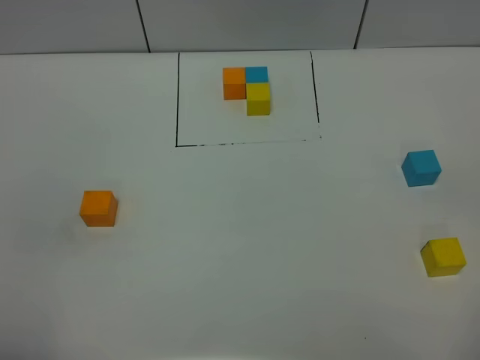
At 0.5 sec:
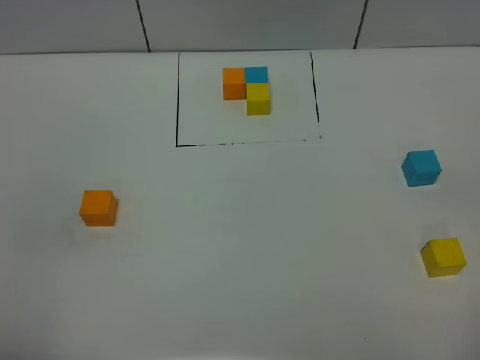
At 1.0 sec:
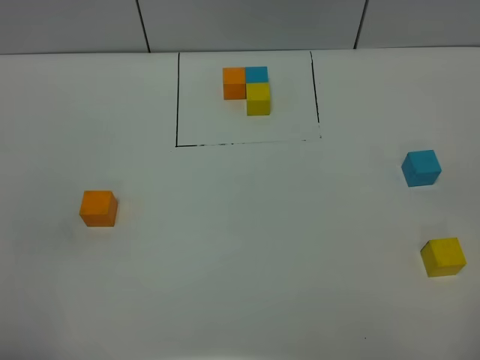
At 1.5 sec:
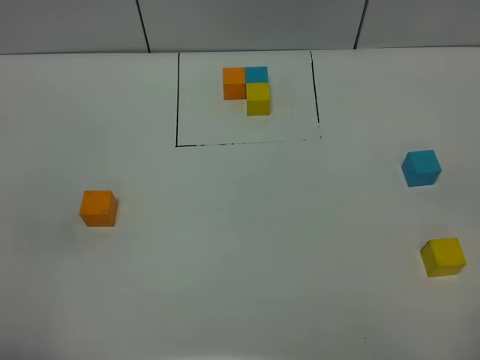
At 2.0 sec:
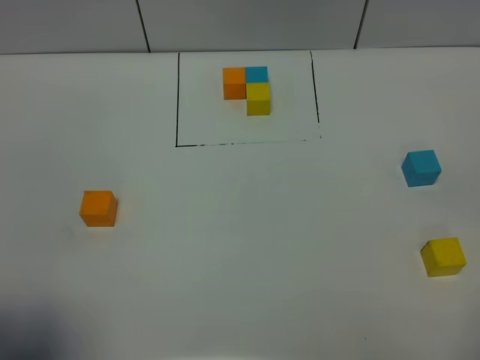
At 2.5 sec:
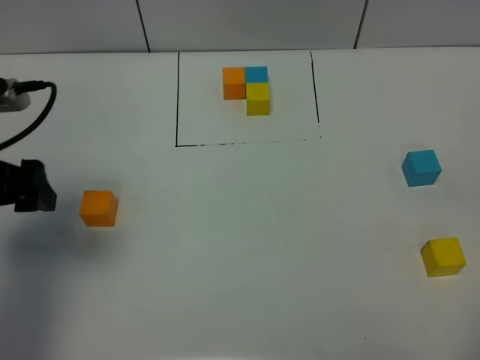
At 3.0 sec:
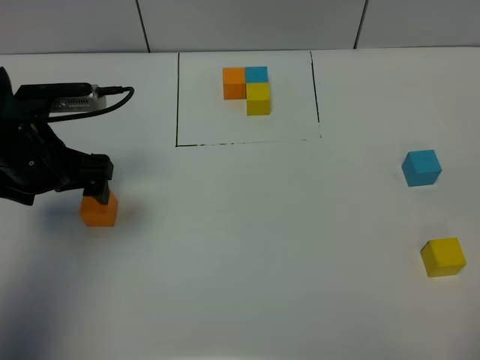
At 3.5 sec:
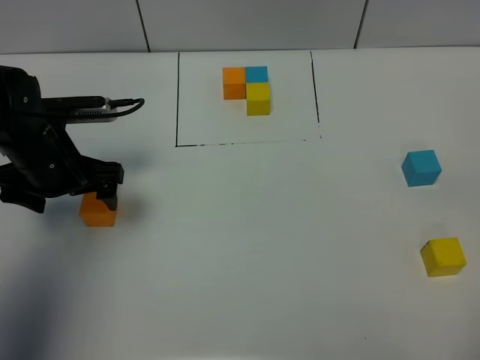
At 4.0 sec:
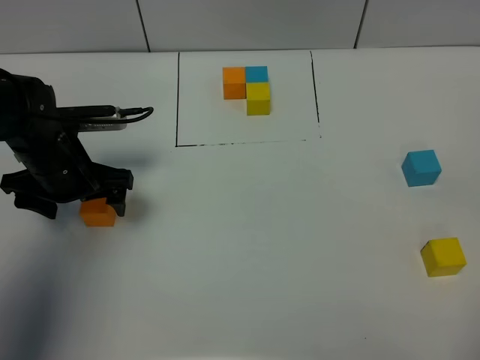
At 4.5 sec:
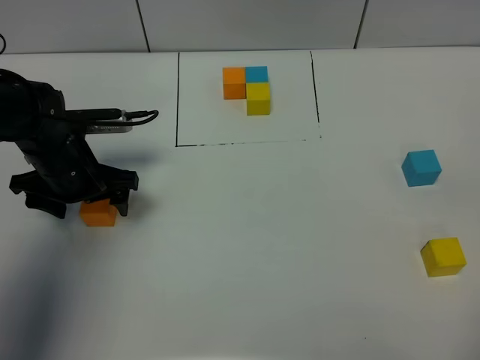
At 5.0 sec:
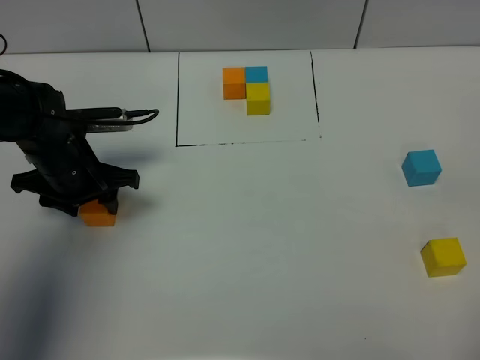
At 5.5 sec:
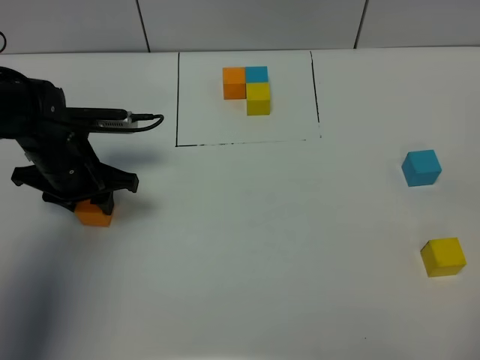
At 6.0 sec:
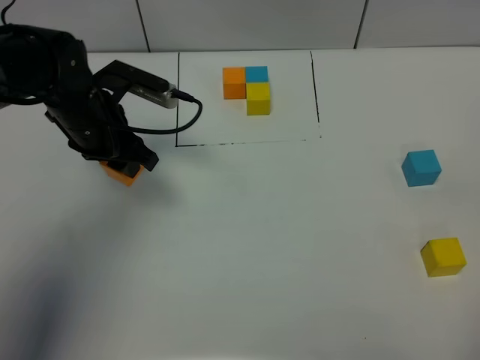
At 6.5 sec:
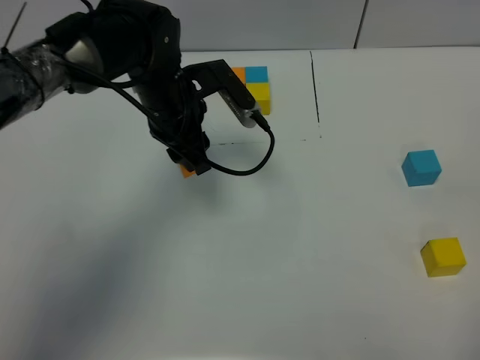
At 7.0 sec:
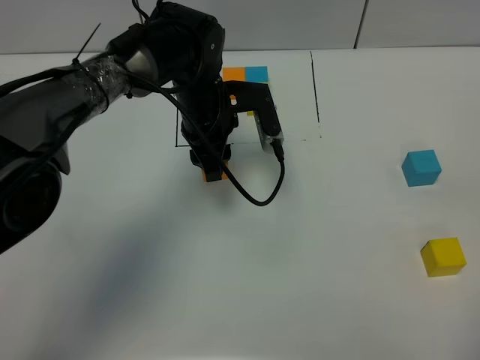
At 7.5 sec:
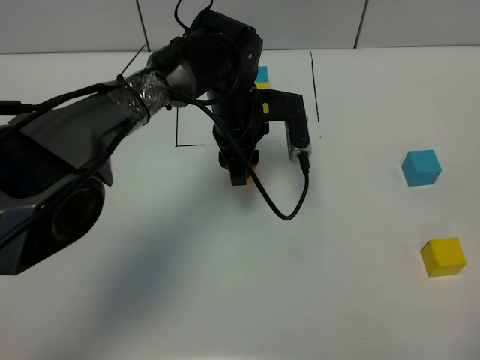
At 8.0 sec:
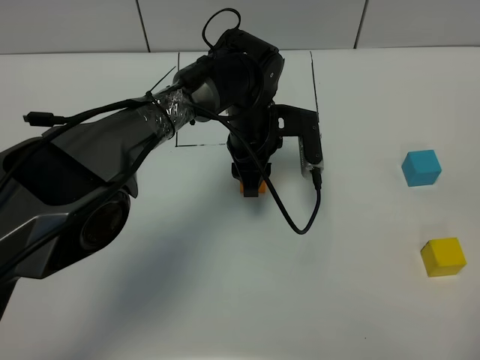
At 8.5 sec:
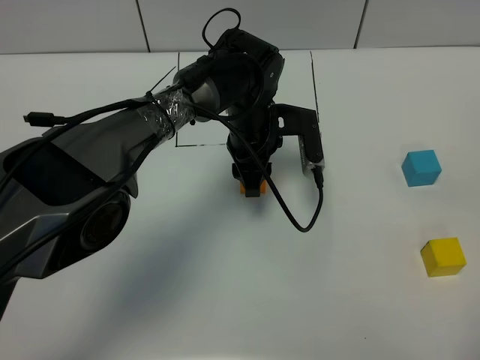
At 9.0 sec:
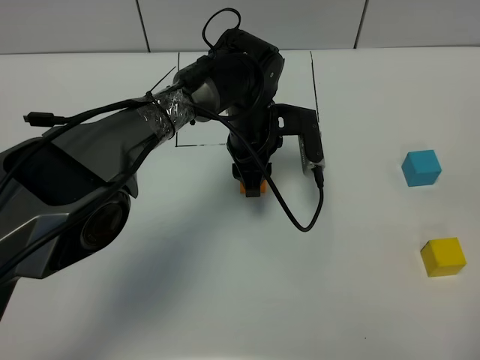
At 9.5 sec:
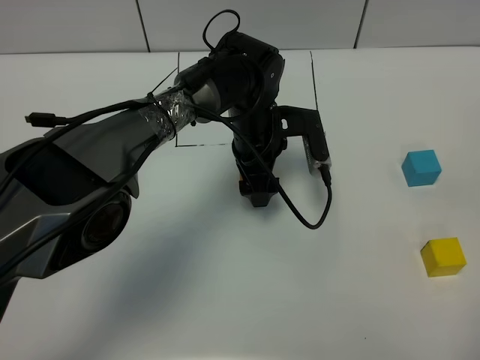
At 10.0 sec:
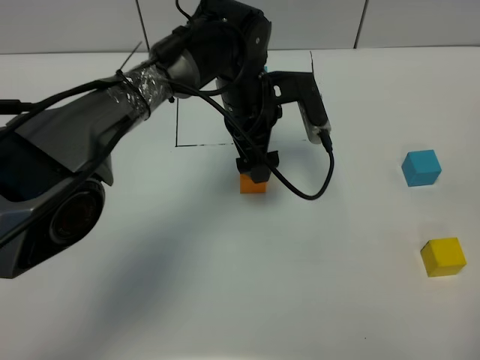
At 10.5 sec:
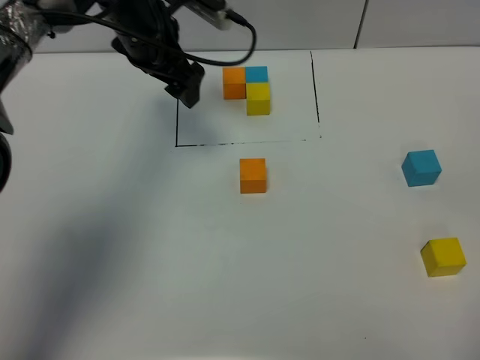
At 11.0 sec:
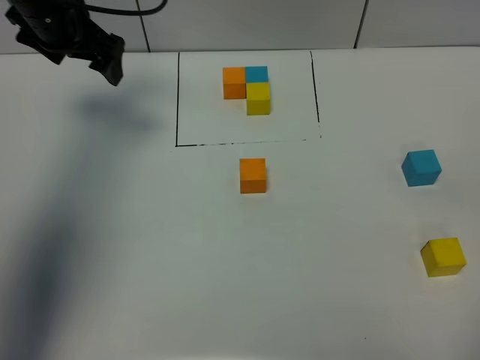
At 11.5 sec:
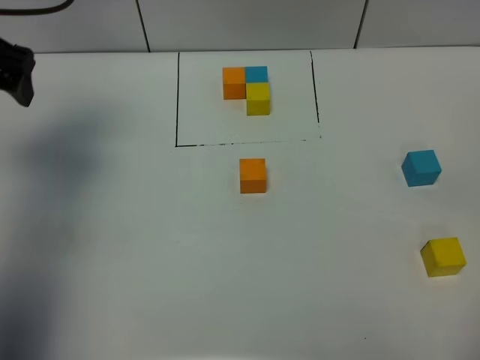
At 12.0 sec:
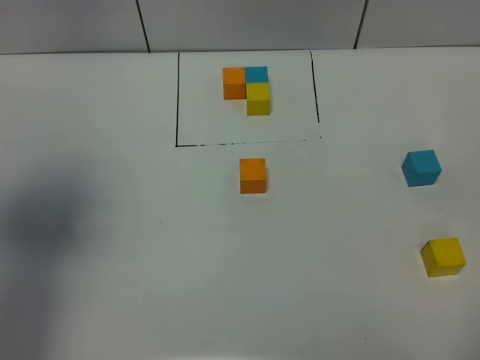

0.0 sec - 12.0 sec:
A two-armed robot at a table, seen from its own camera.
Task of the whole recording: According to the building block template in front, assemble the scattered blocks together.
Step, 0.0 sec - 9.0 sec: Put the orange build block in the center of the table.
0.0 sec - 2.0 sec: The left gripper is displaced forward by approximately 5 cm.
2.0 sec - 4.0 sec: The left gripper travels forward and downward by about 30 cm.
4.0 sec - 6.0 sec: The left gripper changes place by about 5 cm, and closes.
6.0 sec - 8.0 sec: The left gripper shifts some 20 cm to the right.
8.0 sec - 10.0 sec: The left gripper shifts some 5 cm upward, and opens up.
10.0 sec - 12.0 sec: The left gripper is displaced to the left, upward and backward by some 40 cm.

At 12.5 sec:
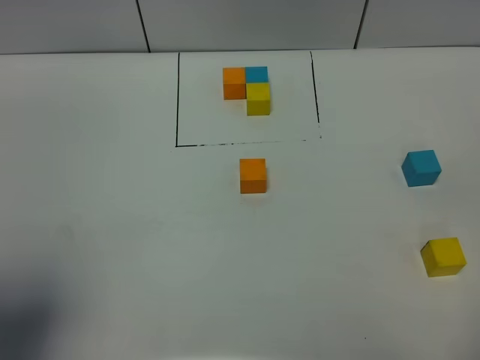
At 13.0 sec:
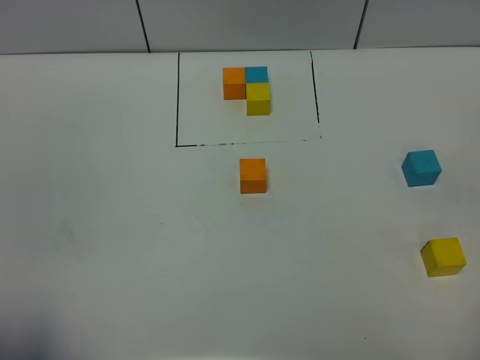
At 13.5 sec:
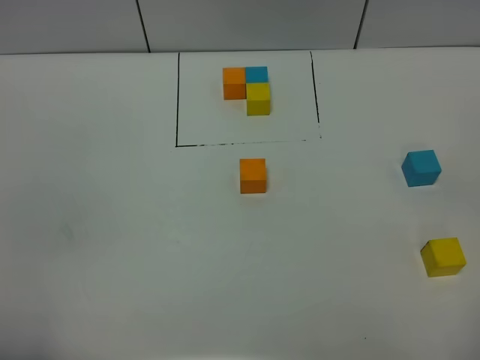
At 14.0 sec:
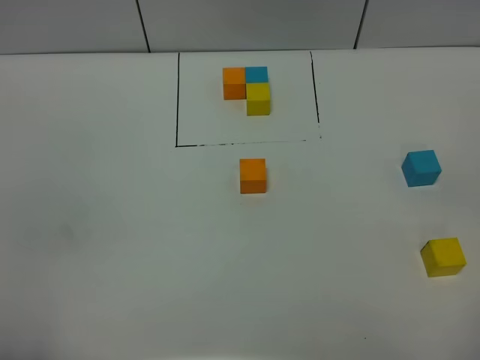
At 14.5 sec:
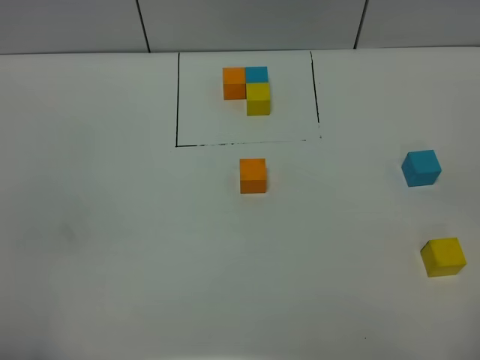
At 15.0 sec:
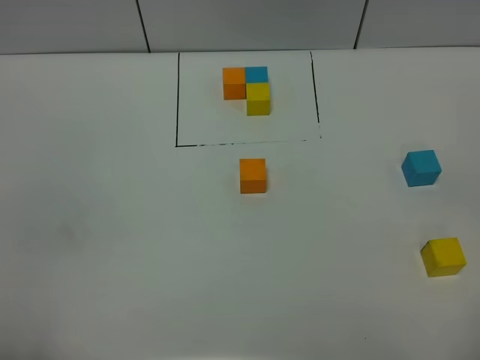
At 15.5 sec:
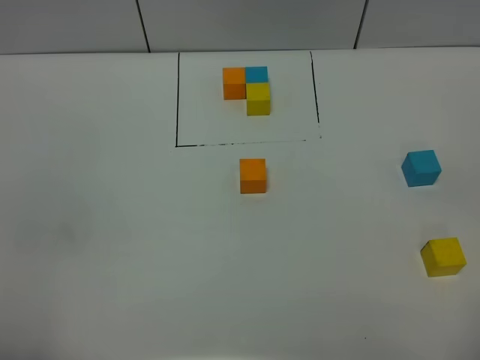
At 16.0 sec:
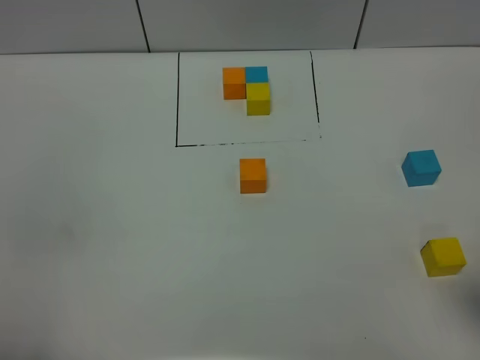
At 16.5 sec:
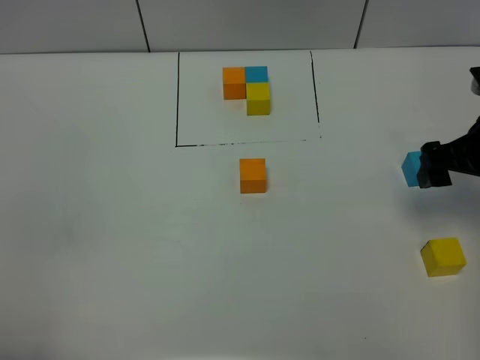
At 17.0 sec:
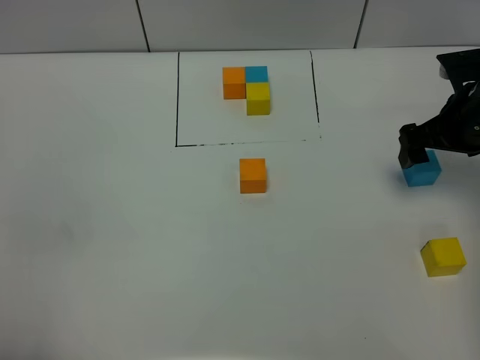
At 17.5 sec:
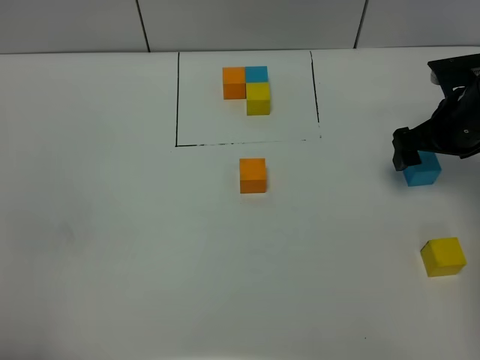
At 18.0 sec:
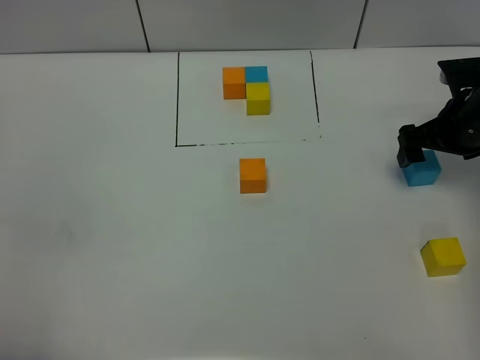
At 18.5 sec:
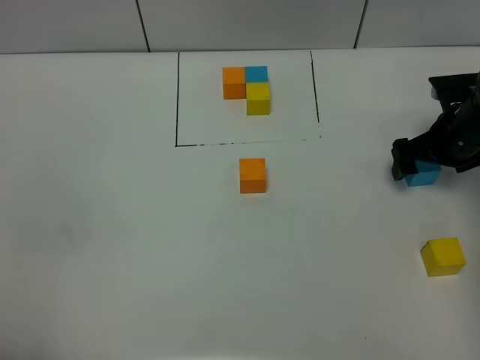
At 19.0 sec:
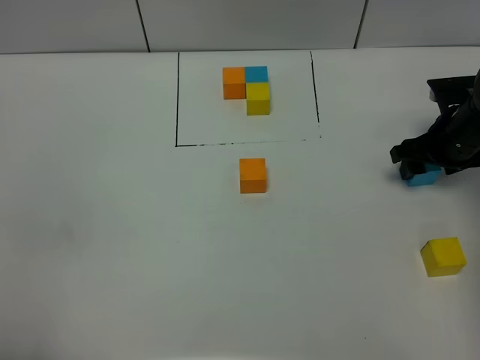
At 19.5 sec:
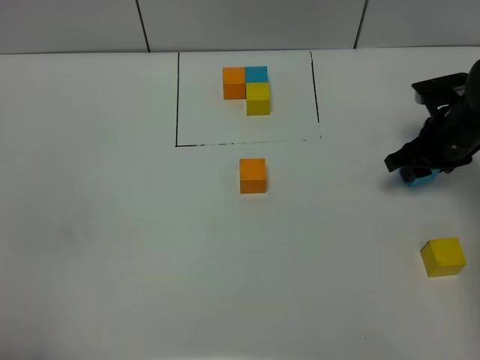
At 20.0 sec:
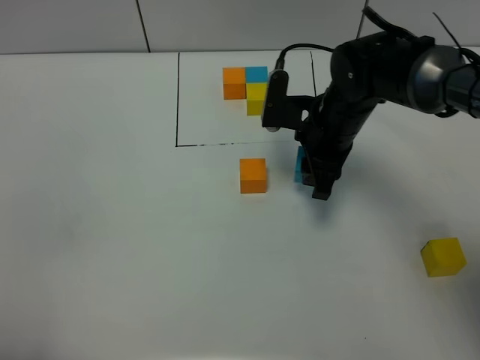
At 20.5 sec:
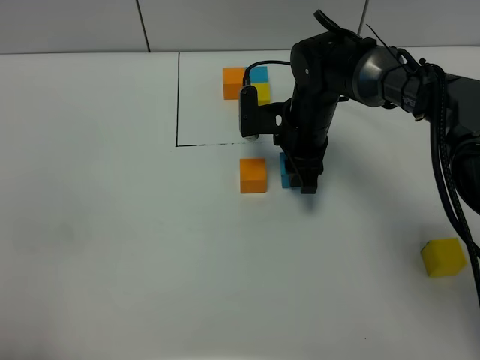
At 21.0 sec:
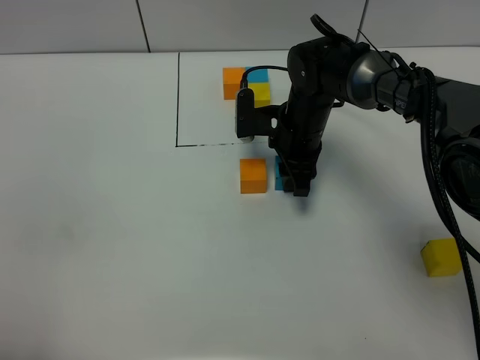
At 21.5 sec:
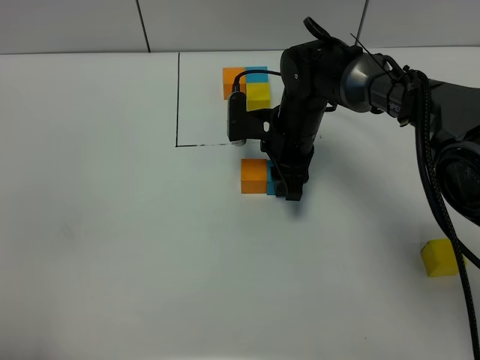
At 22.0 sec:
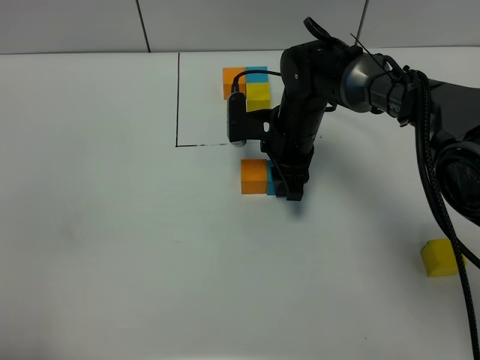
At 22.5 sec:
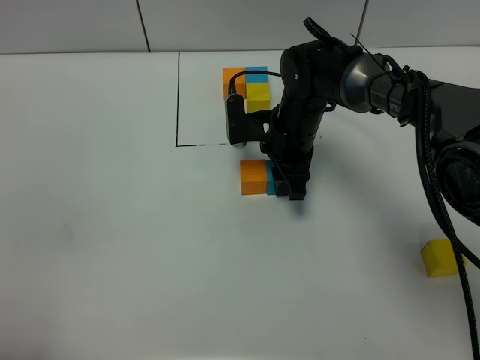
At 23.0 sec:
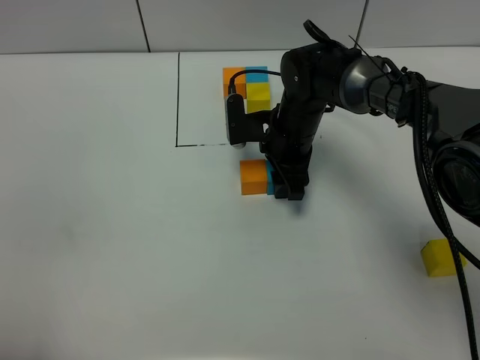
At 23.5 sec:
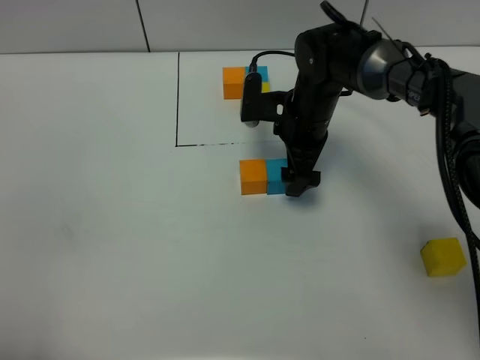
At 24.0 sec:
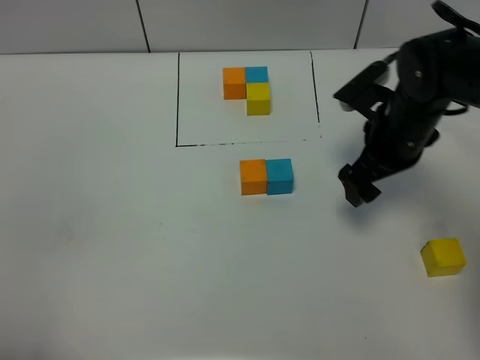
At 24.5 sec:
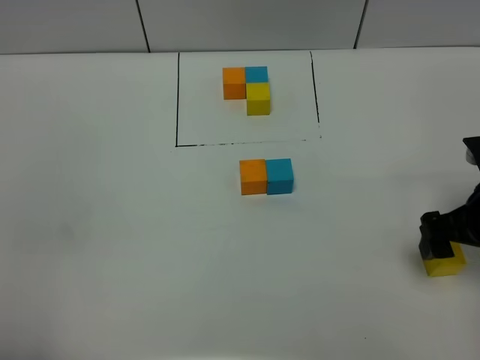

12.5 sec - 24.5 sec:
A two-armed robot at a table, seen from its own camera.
Task of the whole recording: According to the building block template in front, assemble the scattered blocks together.
Step, 12.5 sec - 23.0 sec: Put the blue build block on the right of the orange build block.
12.5 sec - 14.5 sec: The left gripper travels backward and downward by about 10 cm.
14.5 sec - 16.5 sec: The right gripper heads forward, covering about 30 cm.
16.5 sec - 18.5 sec: The right gripper goes approximately 10 cm downward and forward.
18.5 sec - 20.5 sec: The right gripper moves to the left, about 20 cm, and closes up.
20.5 sec - 22.5 sec: The grippers move only a little.
22.5 sec - 24.5 sec: The right gripper goes about 25 cm to the right and backward, and opens.

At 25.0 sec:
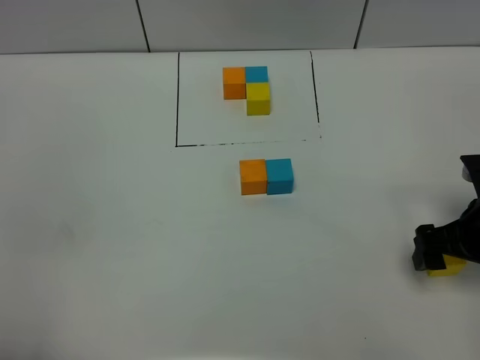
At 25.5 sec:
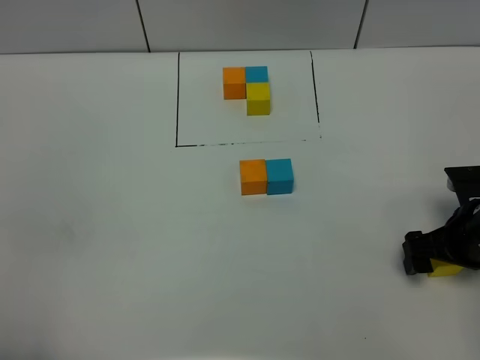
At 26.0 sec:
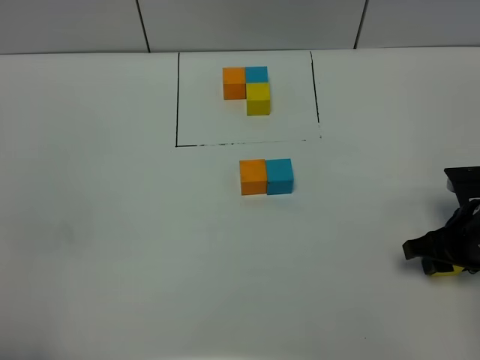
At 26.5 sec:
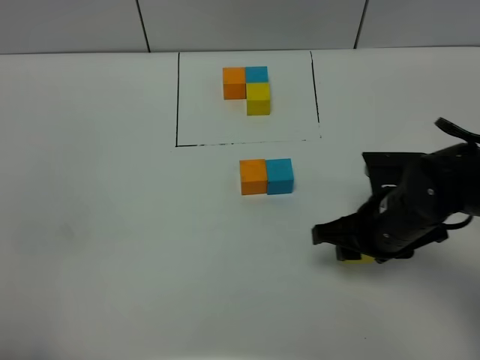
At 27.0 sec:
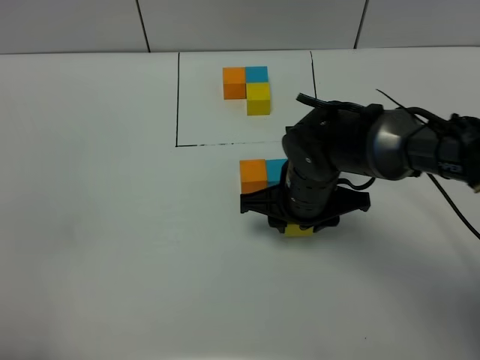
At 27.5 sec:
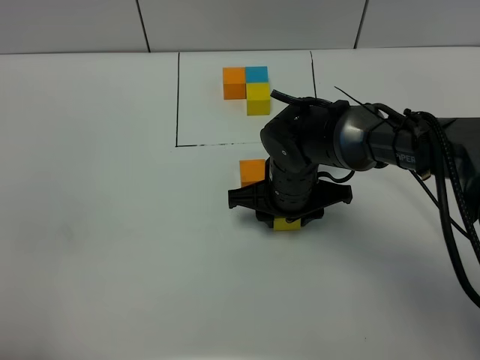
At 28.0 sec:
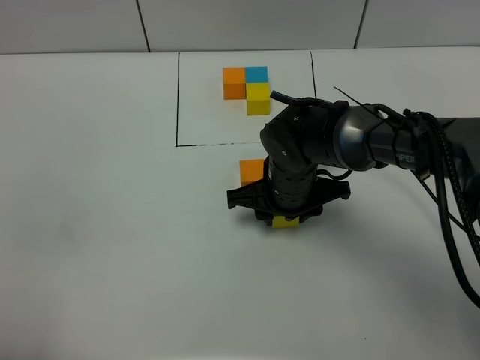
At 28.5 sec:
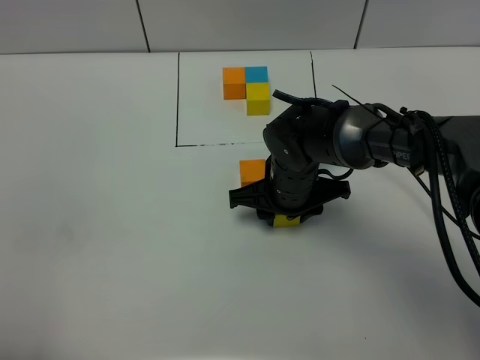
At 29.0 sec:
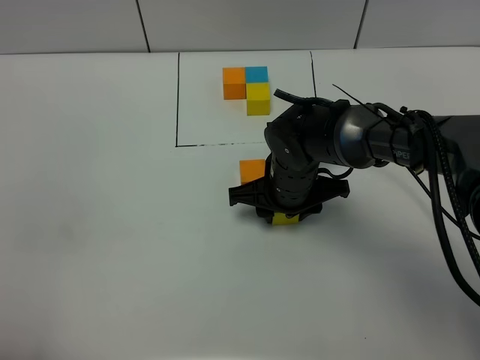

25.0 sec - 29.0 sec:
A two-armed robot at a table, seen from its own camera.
Task of the whole recording: According to the building block template in front, assemble the scattered blocks together.
25.0 sec - 27.0 sec: The right gripper heads to the left and forward, covering about 20 cm, and closes up.
27.0 sec - 29.0 sec: There are only small adjustments of the grippers.
